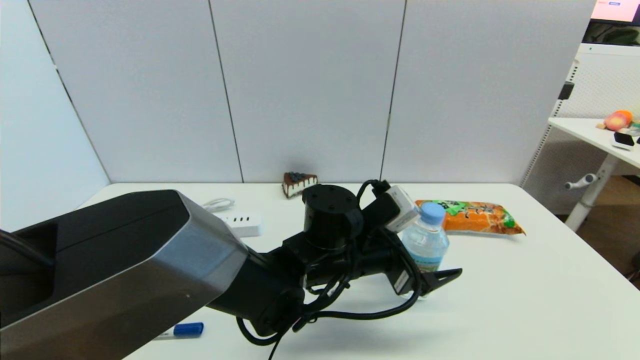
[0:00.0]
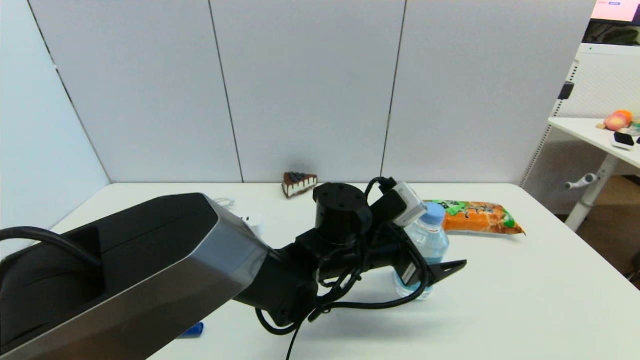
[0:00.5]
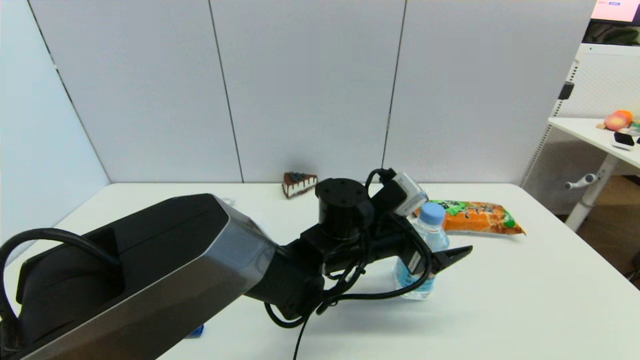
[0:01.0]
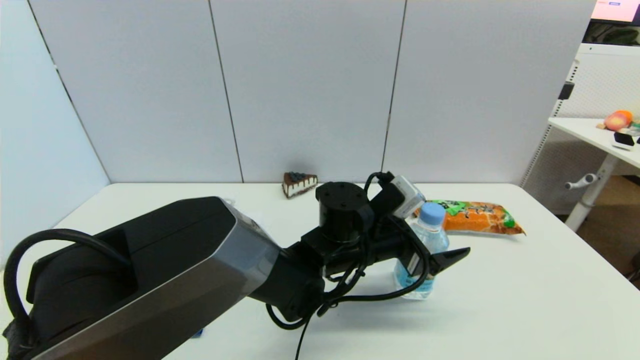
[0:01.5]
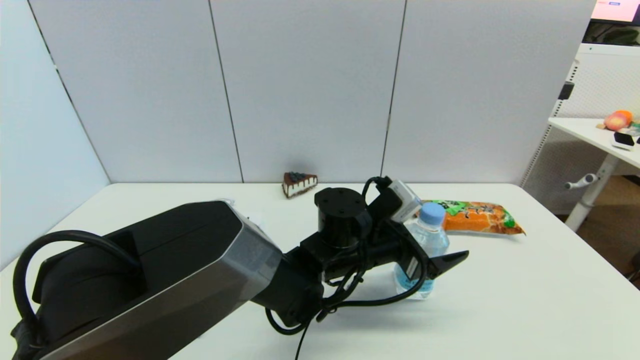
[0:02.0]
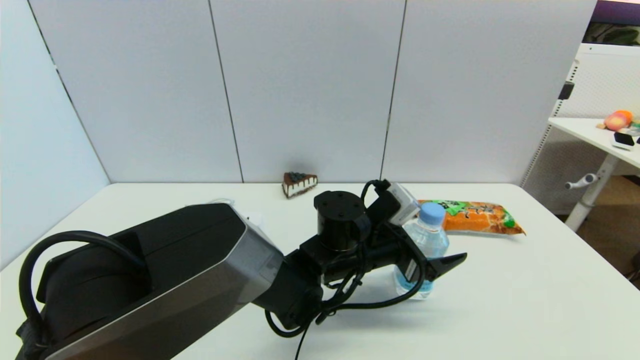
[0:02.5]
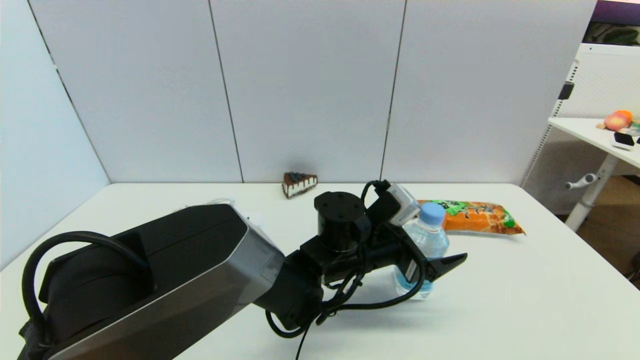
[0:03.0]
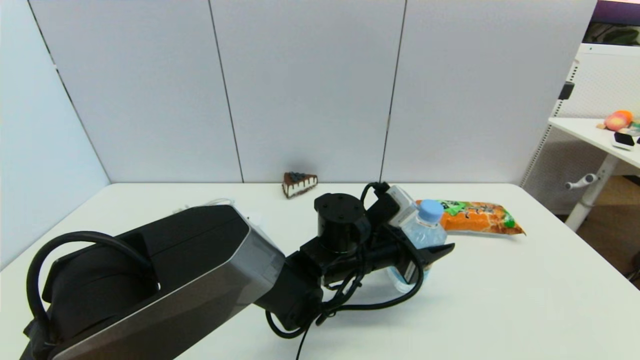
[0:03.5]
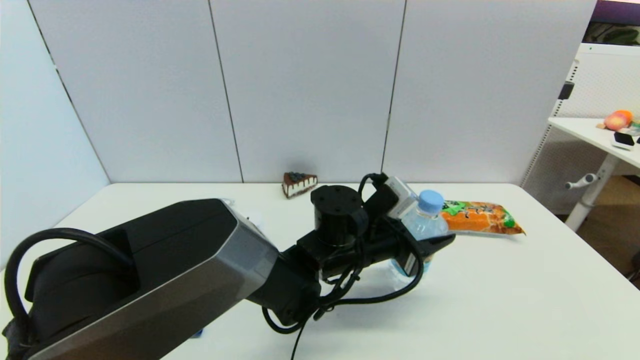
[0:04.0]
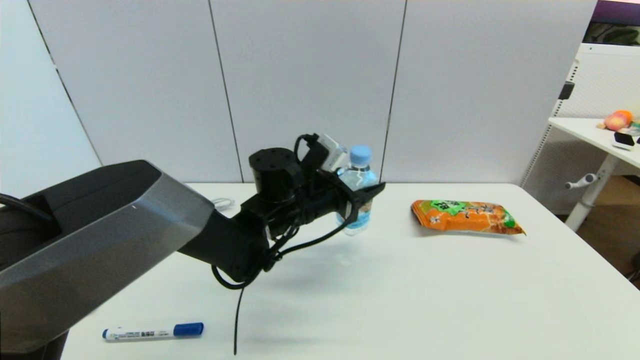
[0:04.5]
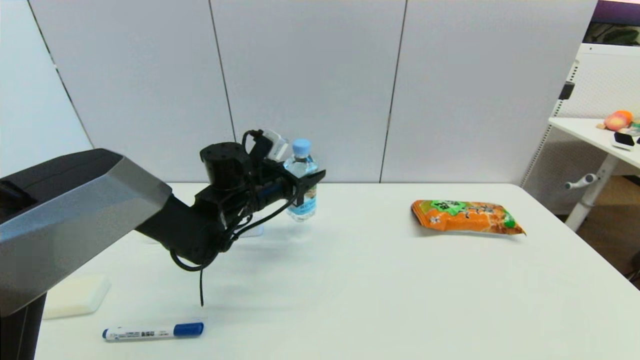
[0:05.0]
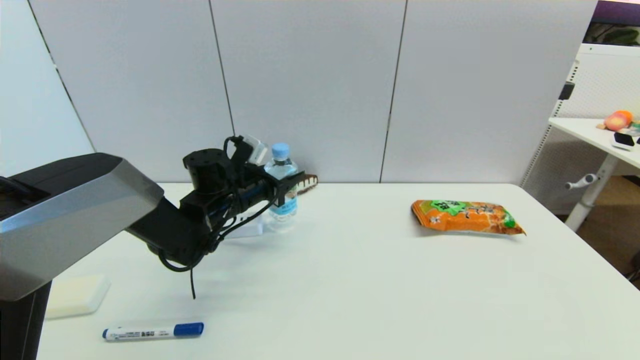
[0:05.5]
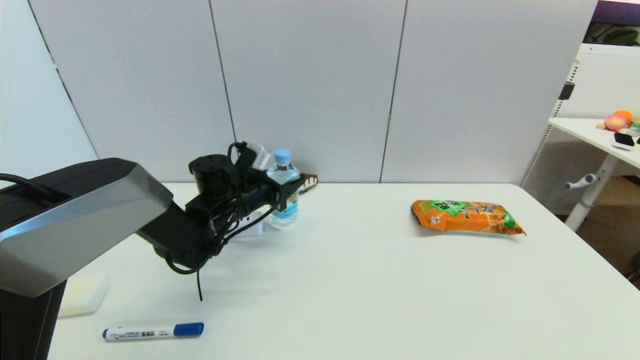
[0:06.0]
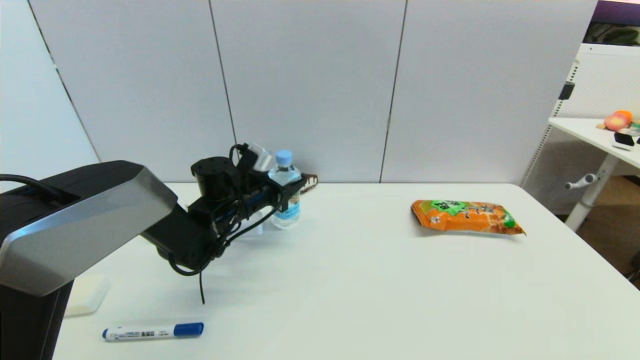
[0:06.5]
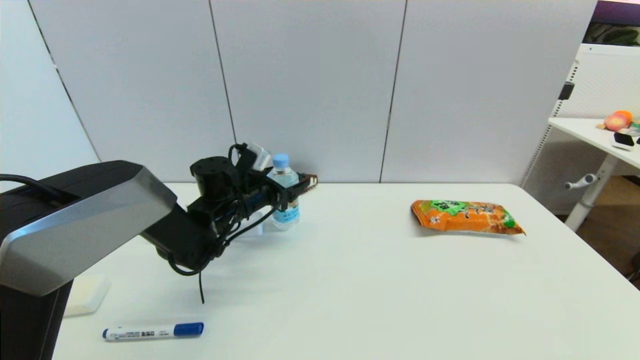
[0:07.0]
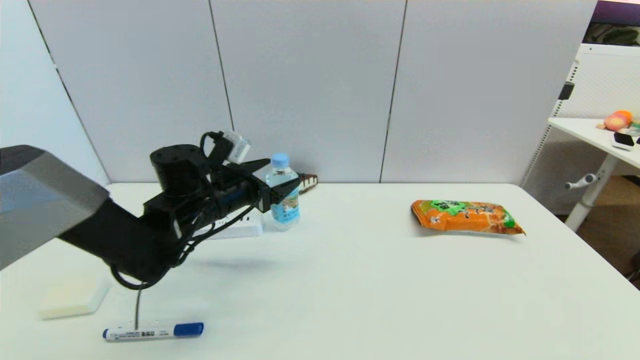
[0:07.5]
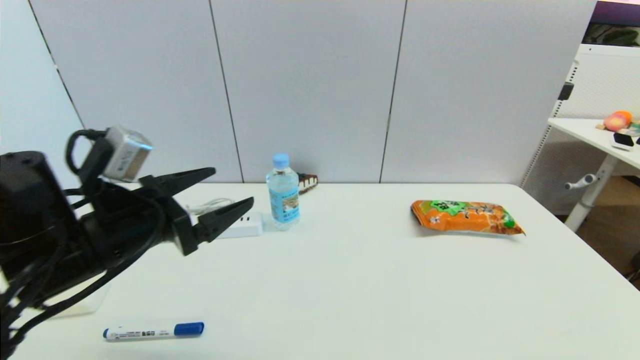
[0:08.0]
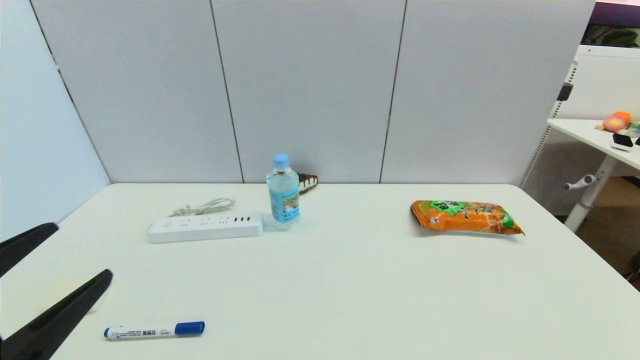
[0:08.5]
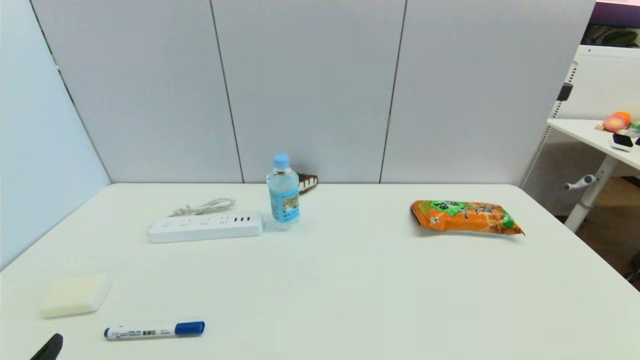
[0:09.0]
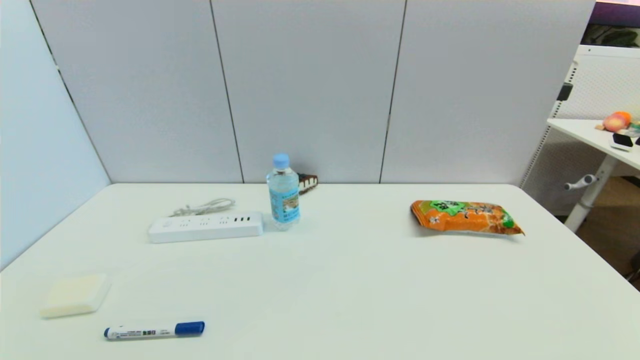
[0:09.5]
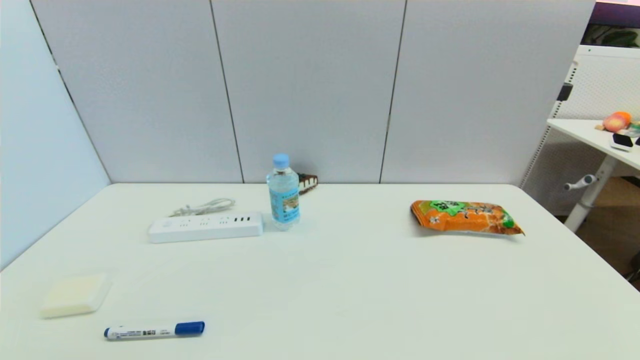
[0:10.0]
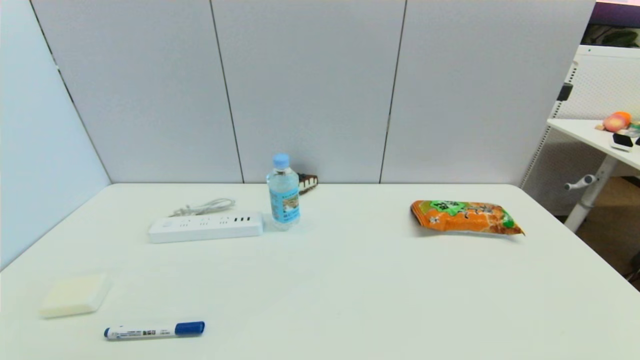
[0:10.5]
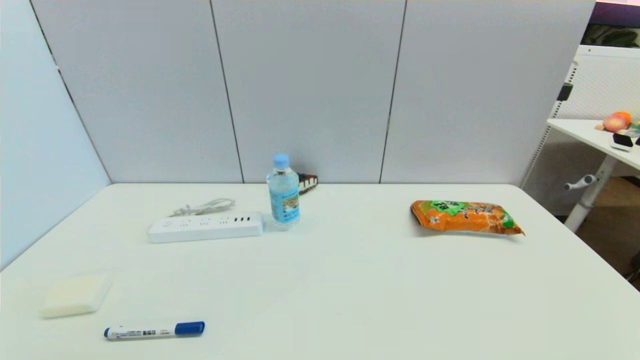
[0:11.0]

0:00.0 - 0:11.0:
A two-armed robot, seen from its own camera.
Step, 0:00.0 - 0:03.5: Grasp the soda water with left gripper.
Step, 0:04.5 - 0:07.0: Place the soda water on the table with left gripper.
0:00.0 - 0:02.0: There are only small adjustments of the grippers.
0:02.0 - 0:03.5: The left gripper closes up.
0:03.5 - 0:05.5: The left gripper goes roughly 20 cm to the left and forward.
0:05.5 - 0:07.5: The left gripper heads backward, covering about 5 cm, and opens up.
0:07.5 - 0:09.0: The left gripper goes approximately 35 cm backward and to the left.
